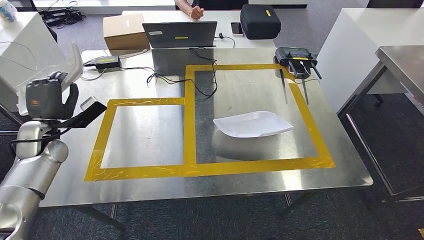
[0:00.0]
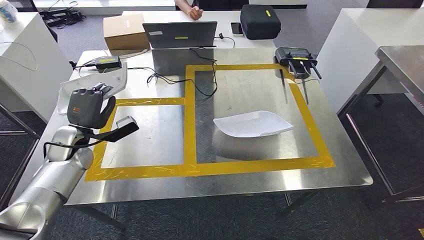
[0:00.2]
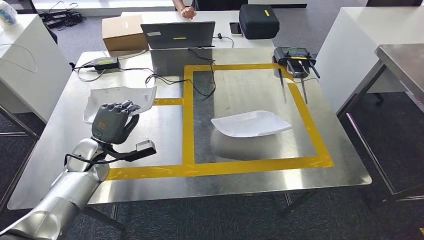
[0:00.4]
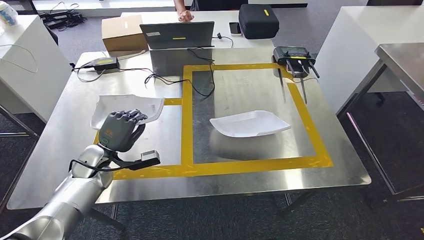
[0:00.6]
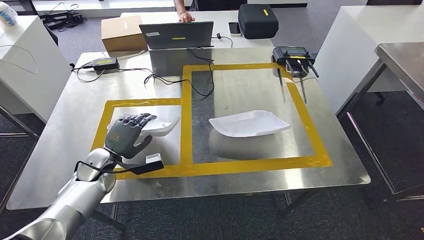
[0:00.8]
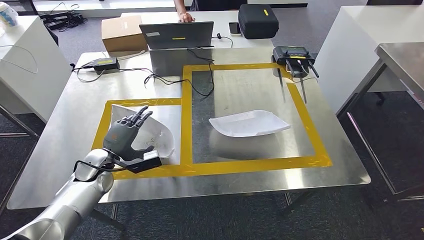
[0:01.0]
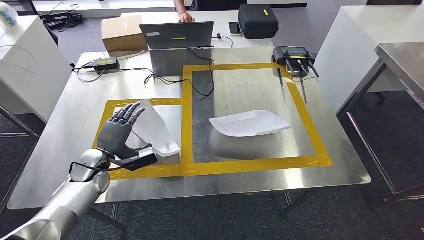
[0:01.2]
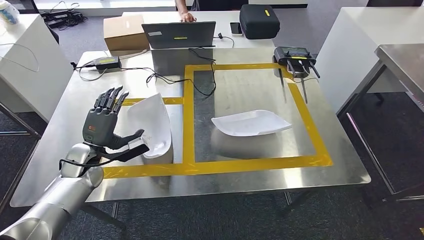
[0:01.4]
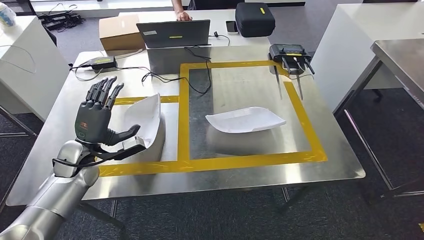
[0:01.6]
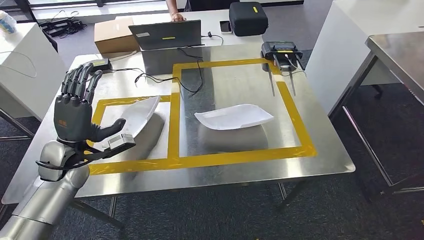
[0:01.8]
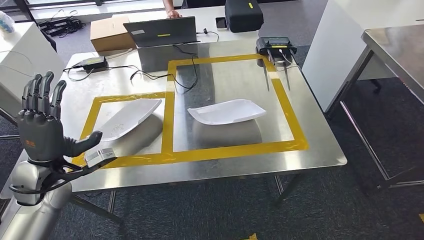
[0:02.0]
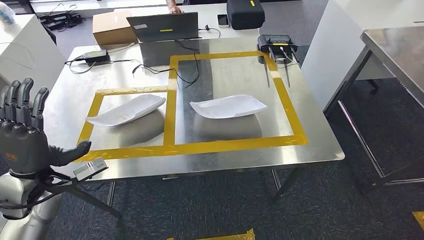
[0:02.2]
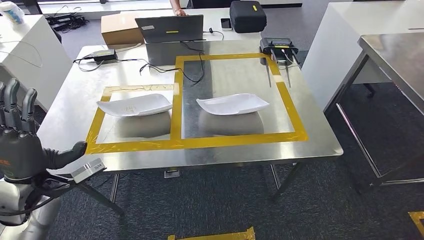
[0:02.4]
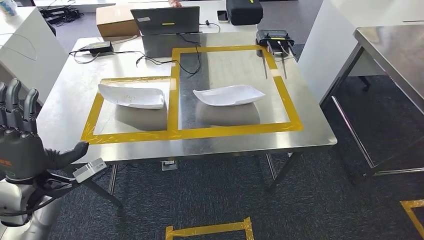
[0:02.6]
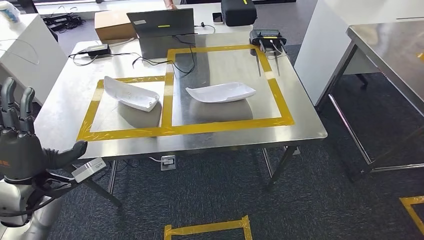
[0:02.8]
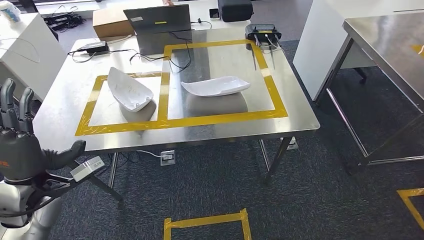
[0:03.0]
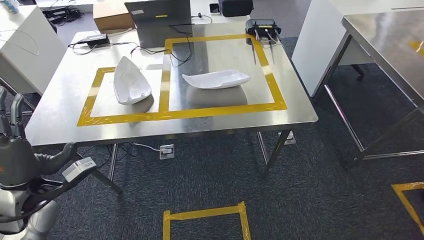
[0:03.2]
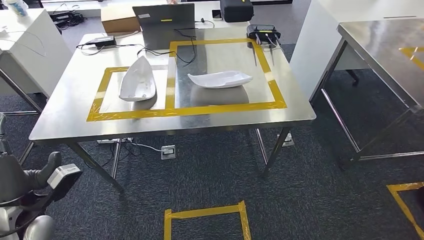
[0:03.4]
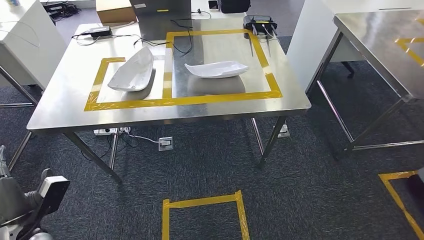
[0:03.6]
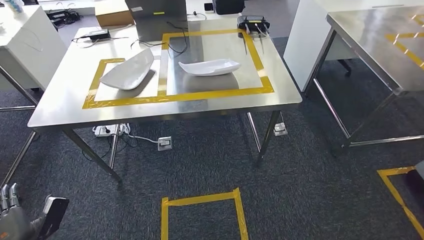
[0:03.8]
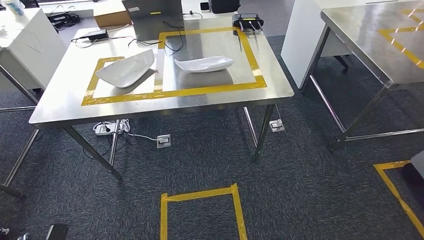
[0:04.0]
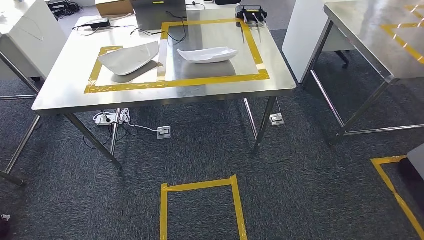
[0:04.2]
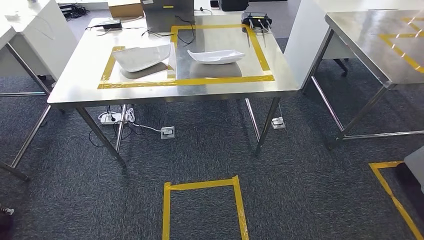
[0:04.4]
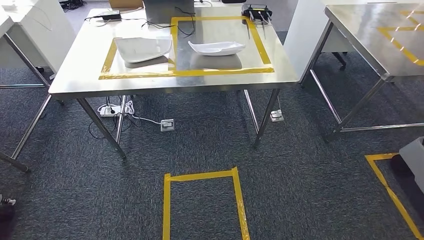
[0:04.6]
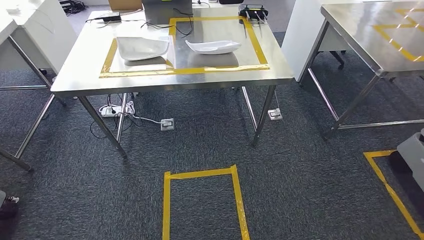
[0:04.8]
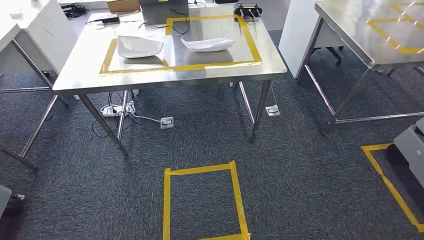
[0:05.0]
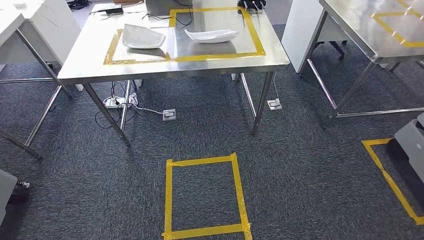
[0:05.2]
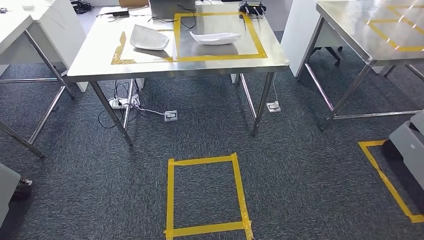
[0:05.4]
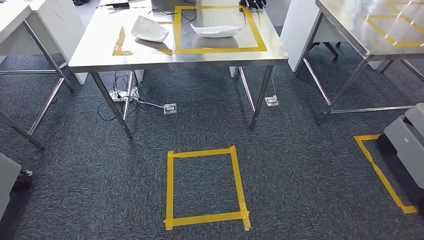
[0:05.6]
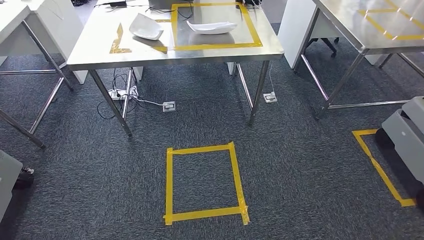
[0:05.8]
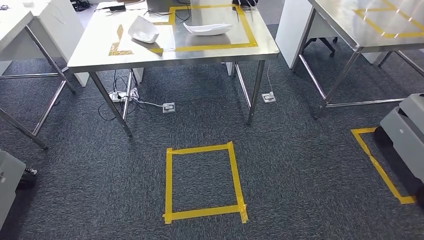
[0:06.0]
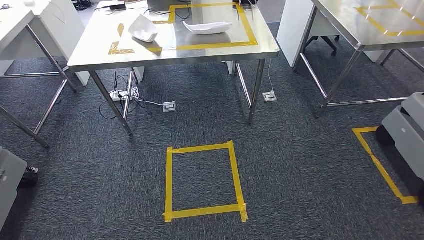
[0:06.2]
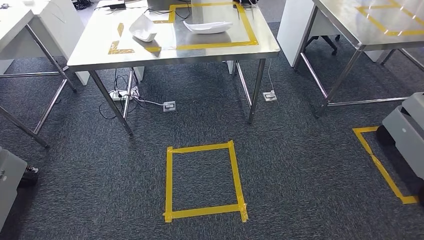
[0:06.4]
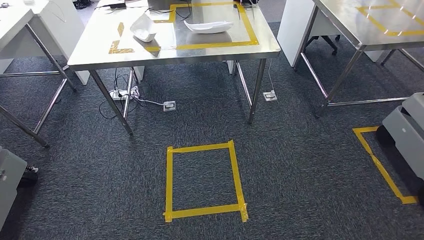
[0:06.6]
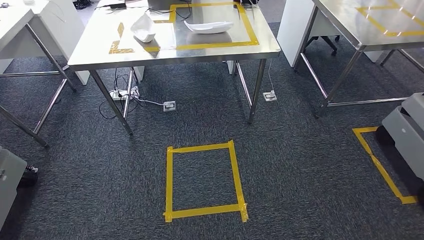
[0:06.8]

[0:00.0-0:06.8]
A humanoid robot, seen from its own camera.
Step, 0:00.0 to 0:02.0: Insert the small component into the corresponding slot on the workbench.
Step, 0:02.4 to 0:06.8: Return to the initial position at the workbench.
